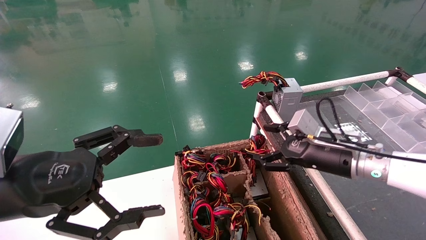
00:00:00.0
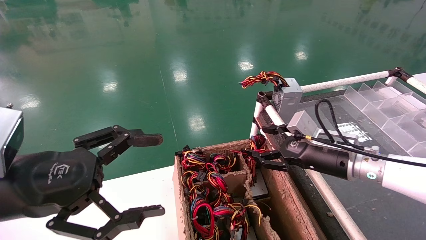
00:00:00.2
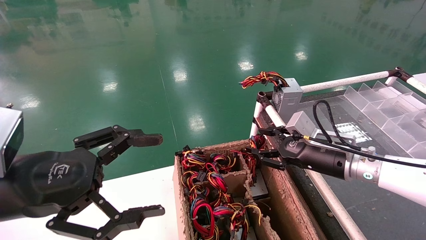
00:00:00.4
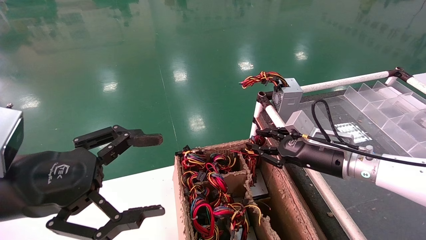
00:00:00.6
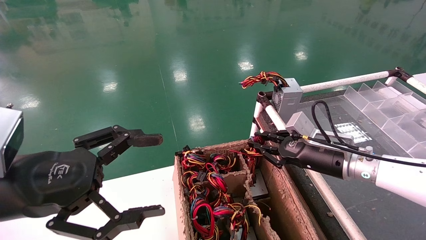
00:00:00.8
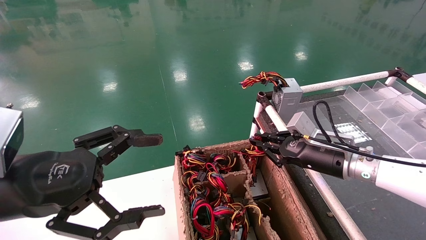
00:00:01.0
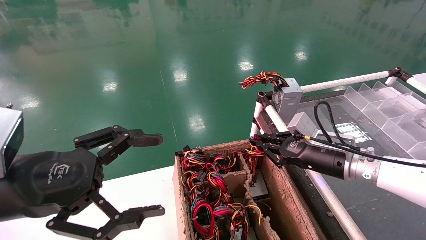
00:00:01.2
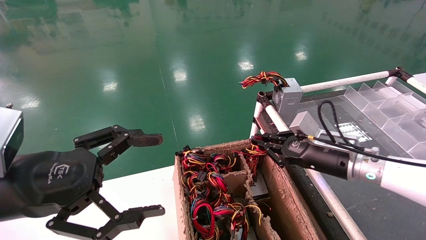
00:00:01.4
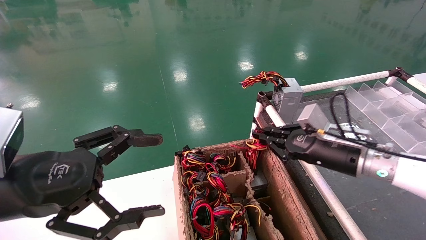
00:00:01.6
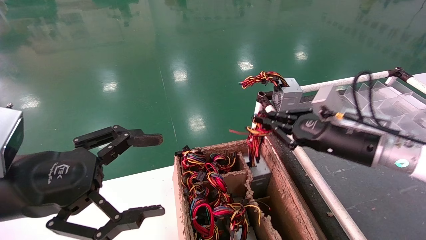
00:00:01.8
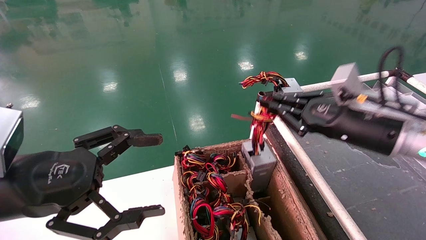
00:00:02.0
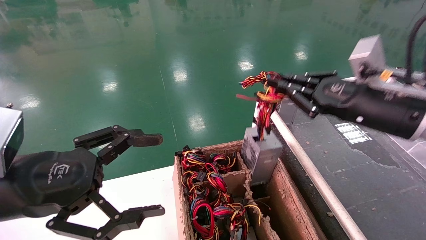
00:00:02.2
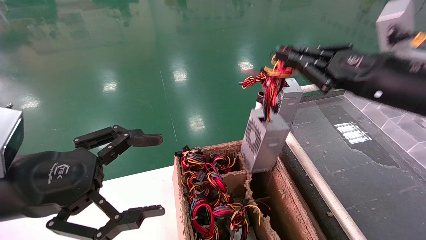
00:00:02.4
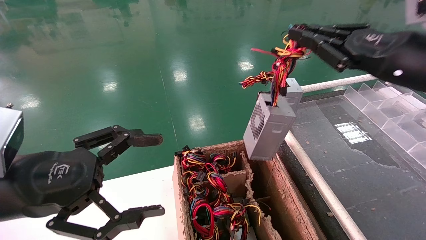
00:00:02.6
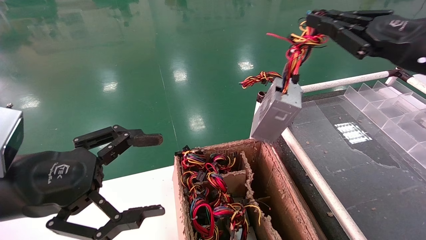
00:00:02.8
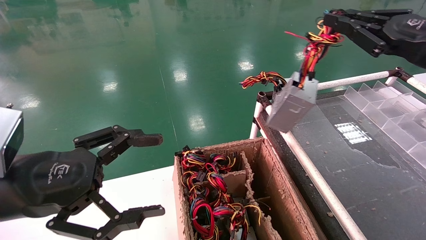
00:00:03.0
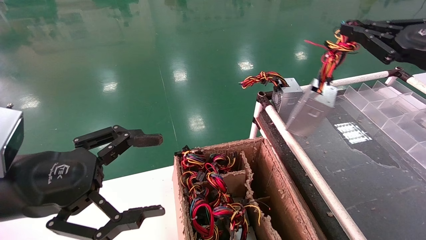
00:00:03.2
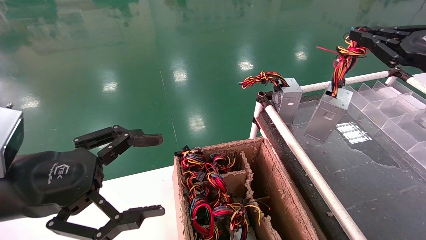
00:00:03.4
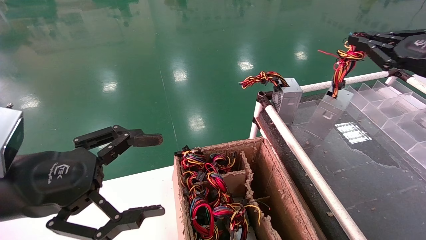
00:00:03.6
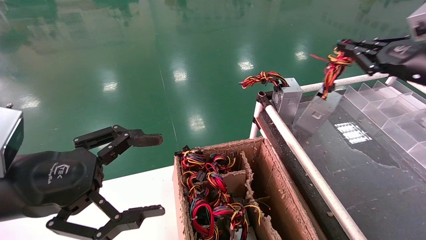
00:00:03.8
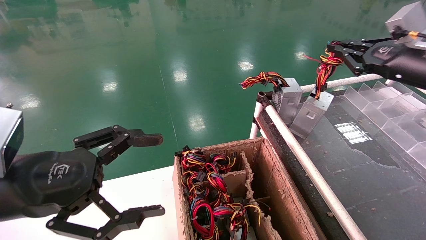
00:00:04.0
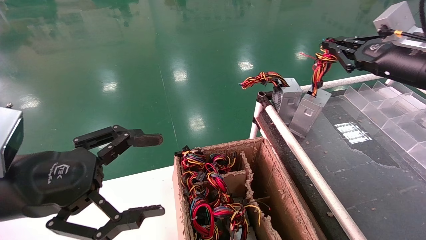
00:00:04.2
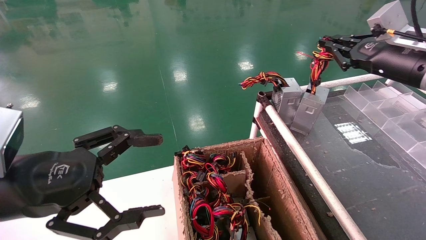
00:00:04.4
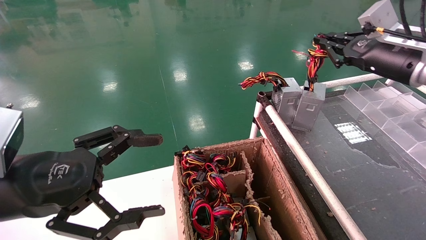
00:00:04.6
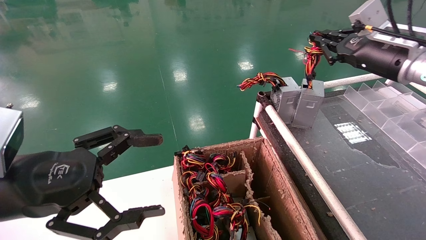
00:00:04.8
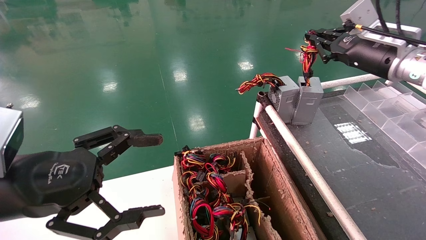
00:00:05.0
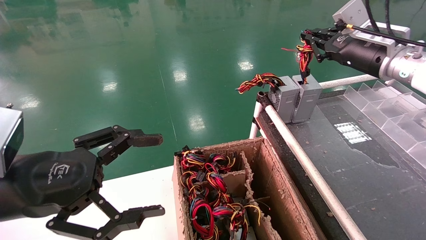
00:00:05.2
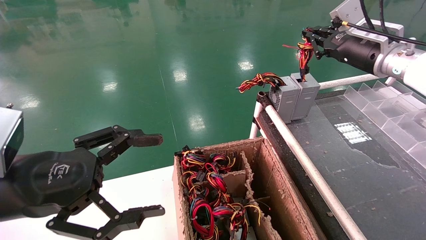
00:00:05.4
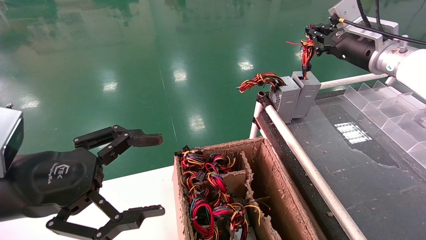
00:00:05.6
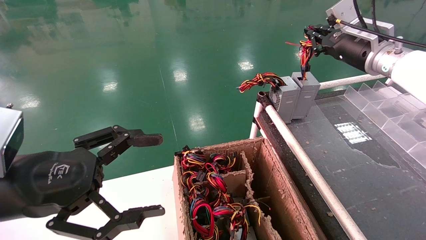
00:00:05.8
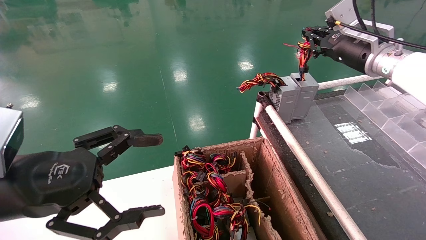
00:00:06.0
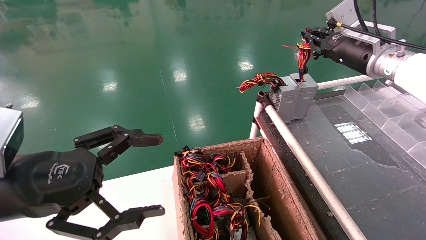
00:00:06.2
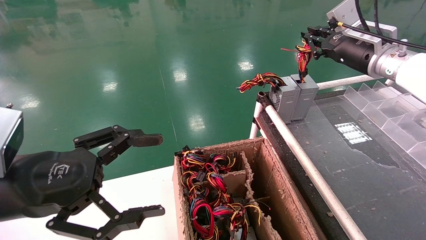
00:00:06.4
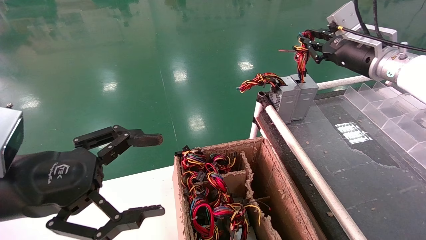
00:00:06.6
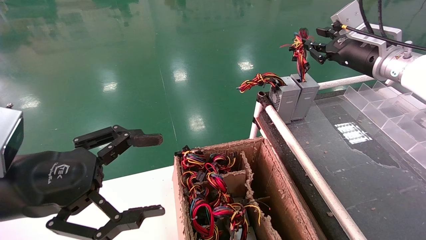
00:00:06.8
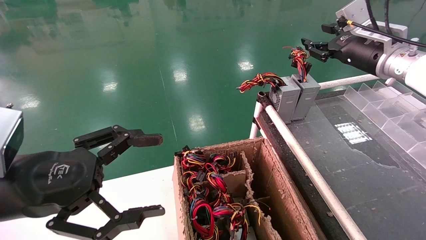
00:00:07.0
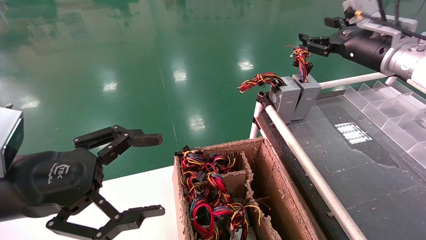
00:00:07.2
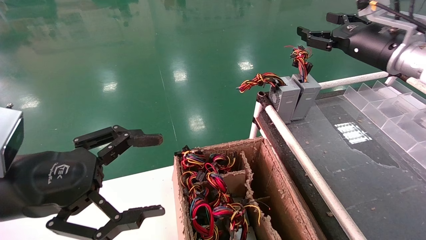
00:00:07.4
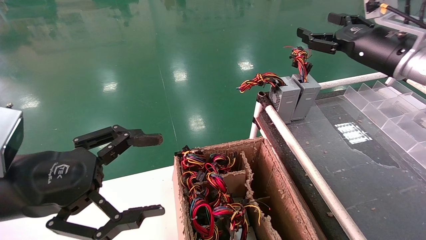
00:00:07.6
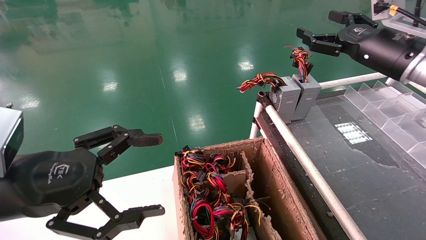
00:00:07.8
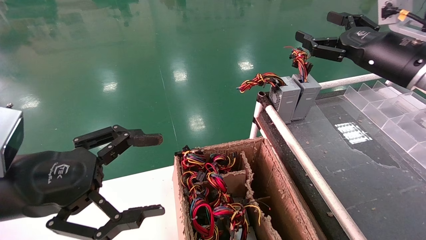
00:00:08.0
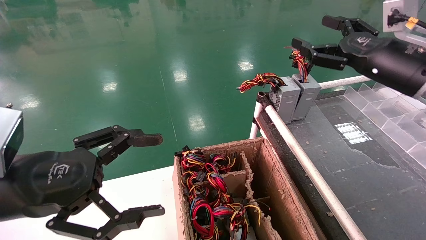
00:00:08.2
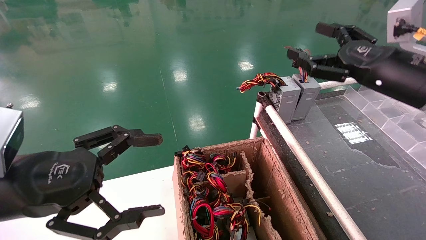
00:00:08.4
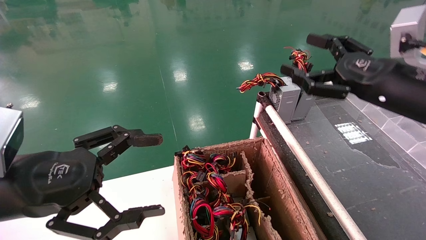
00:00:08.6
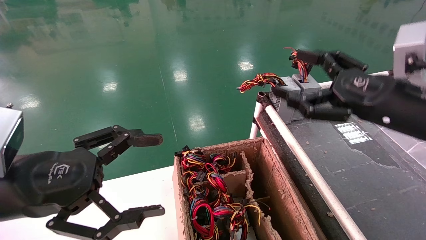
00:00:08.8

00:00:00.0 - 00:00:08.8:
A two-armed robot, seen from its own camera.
Step, 00:00:01.2 - 00:00:06.6: Place the power supply on the operating table.
00:00:00.0 - 00:00:01.4: The right gripper closes.
00:00:01.4 - 00:00:03.0: The right gripper is displaced upward, to the right and backward by about 25 cm.
00:00:03.0 - 00:00:04.4: The right gripper travels forward by about 10 cm.
00:00:04.4 - 00:00:05.8: The right gripper moves forward and to the left, some 10 cm.
00:00:05.8 - 00:00:07.4: The right gripper opens up.
00:00:07.4 - 00:00:08.8: The right gripper travels backward and downward by about 15 cm.
